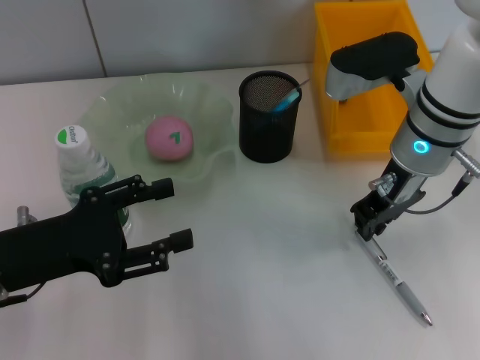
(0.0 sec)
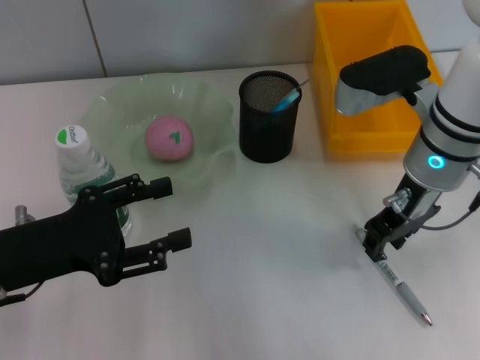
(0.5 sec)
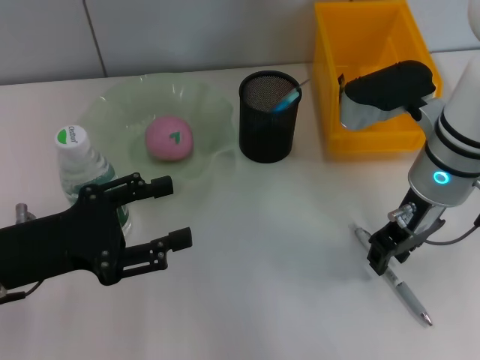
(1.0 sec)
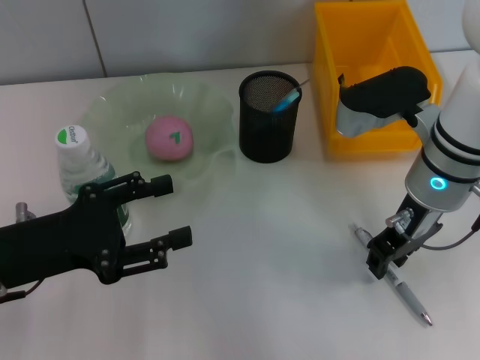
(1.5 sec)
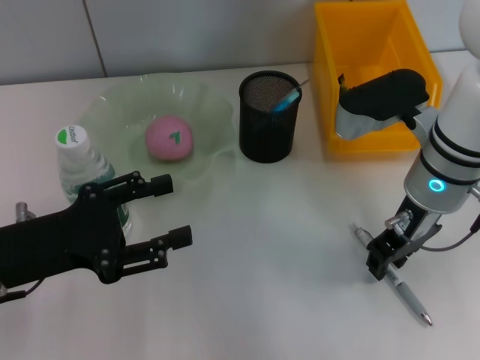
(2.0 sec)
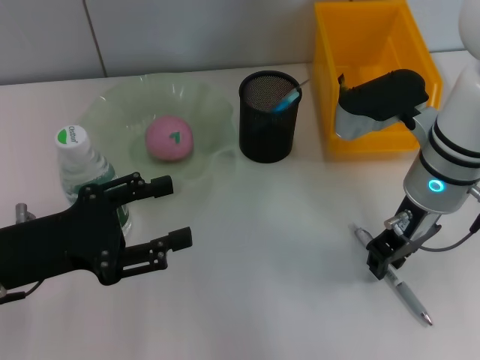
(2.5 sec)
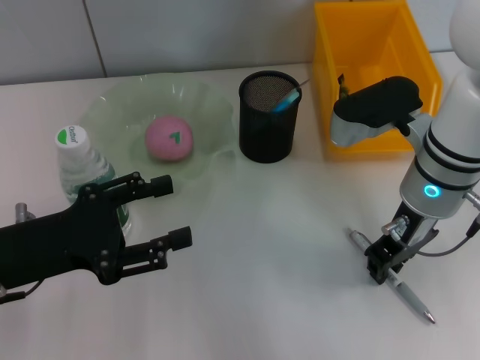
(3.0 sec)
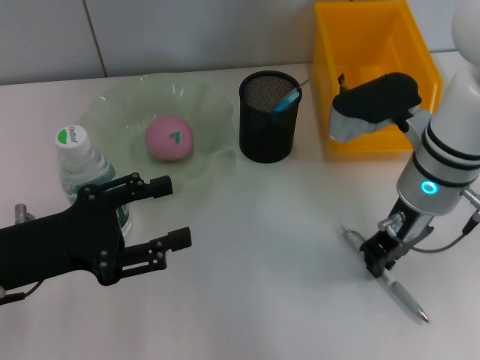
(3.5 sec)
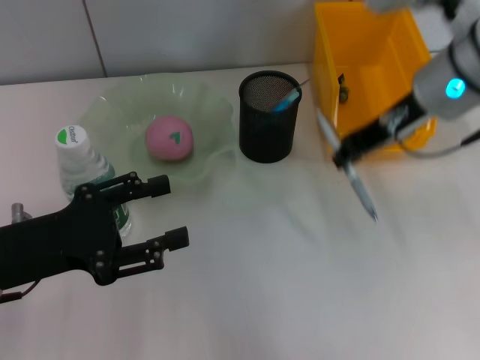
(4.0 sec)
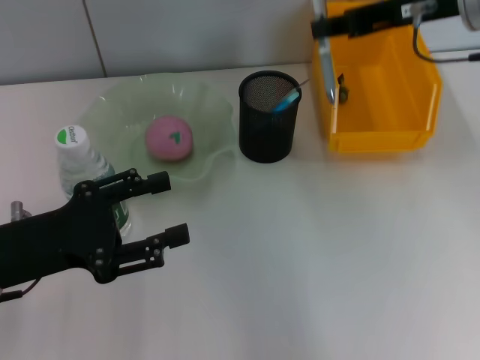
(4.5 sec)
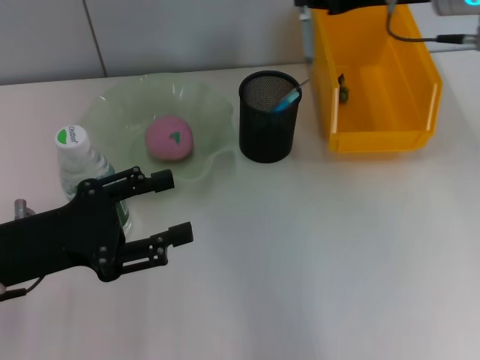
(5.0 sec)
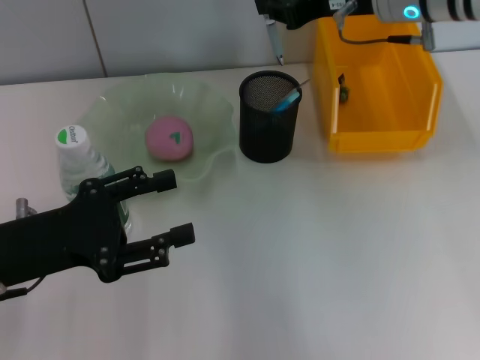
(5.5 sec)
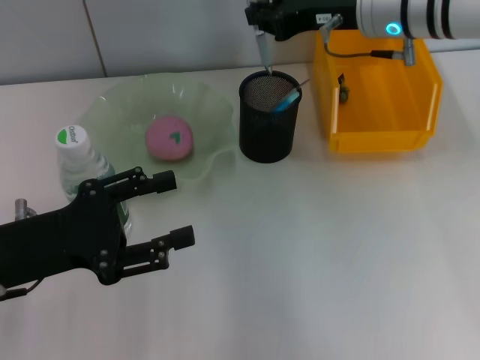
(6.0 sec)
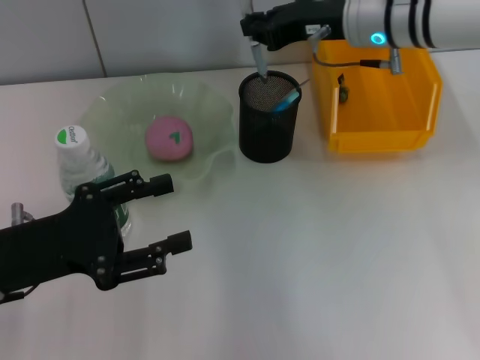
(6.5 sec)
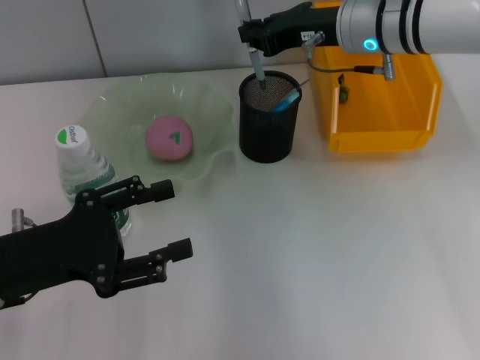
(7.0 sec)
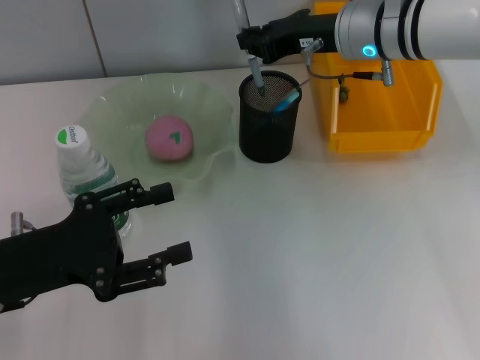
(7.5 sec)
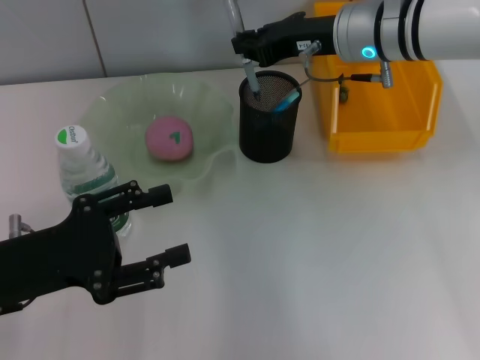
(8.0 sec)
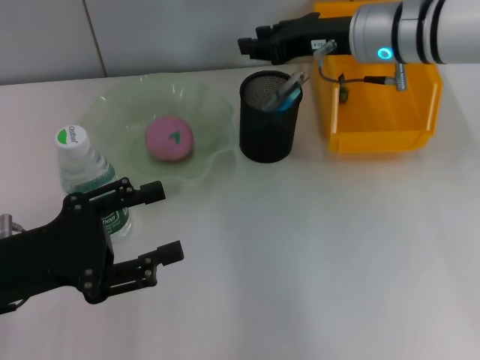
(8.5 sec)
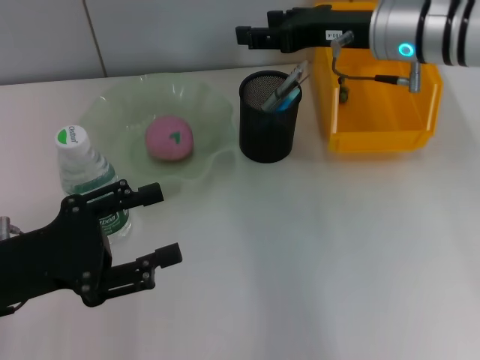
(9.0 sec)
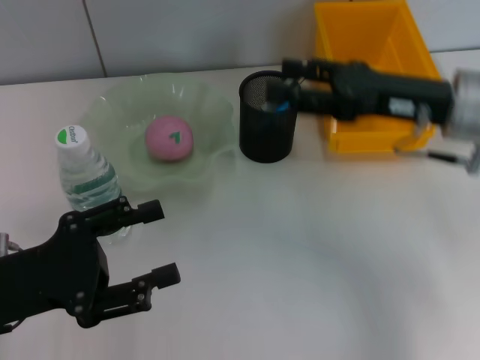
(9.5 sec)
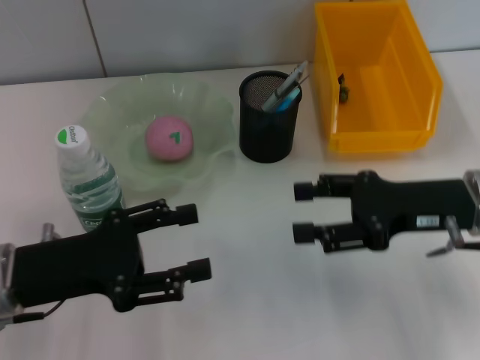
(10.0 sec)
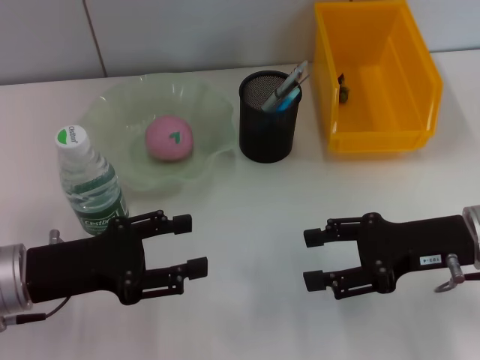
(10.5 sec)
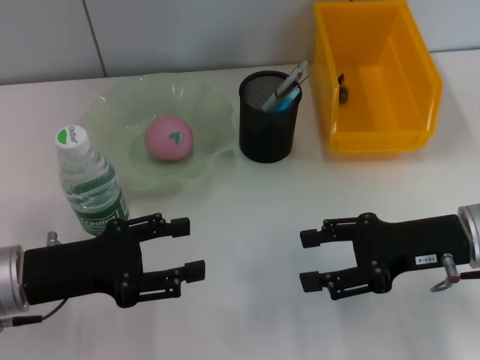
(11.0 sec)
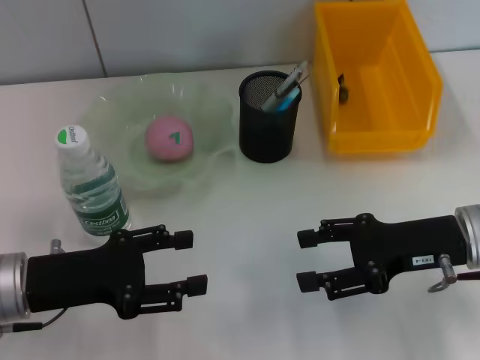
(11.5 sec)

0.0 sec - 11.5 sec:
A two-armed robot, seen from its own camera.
Step, 0.0 sec - 3.0 sec: Grab the gray spring-action pen with the right hand.
Step, 3.5 sec - 8.5 sec: Place the gray spring-action pen into the pen holder with the right hand.
0.0 sec - 2.0 sec: There are only small adjustments of the grippers.
2.0 sec - 4.0 sec: The right gripper moves upward, about 10 cm.
4.0 sec - 6.0 sec: The right gripper shifts roughly 5 cm forward.
6.0 sec - 7.5 sec: The grippers make only small movements.
7.5 sec - 9.5 sec: The right gripper shifts about 15 cm backward and to the right, and opens its fingers.
9.5 sec - 11.5 sec: The right gripper is displaced downward by approximately 5 cm.

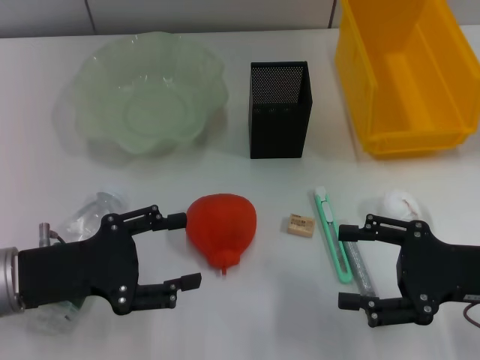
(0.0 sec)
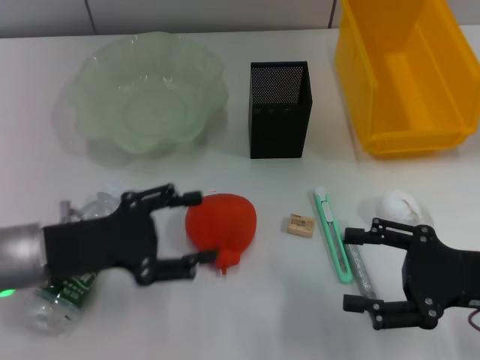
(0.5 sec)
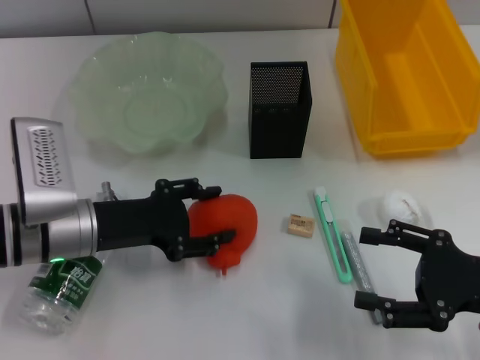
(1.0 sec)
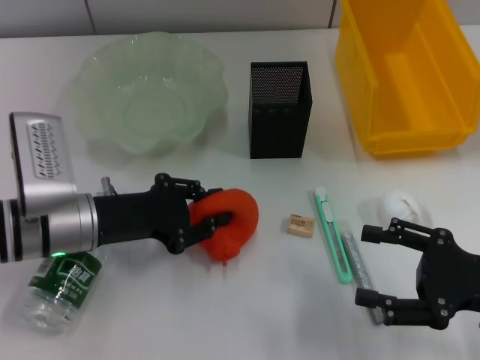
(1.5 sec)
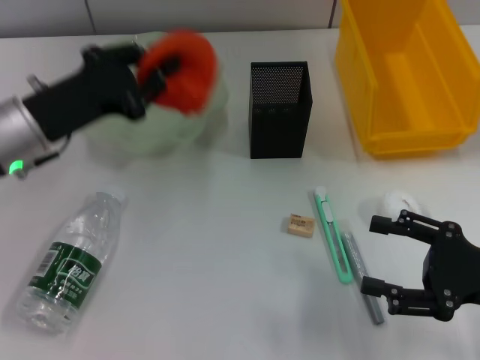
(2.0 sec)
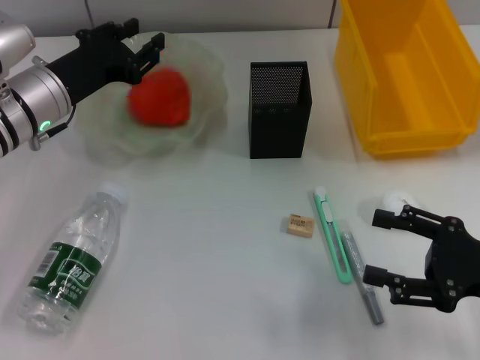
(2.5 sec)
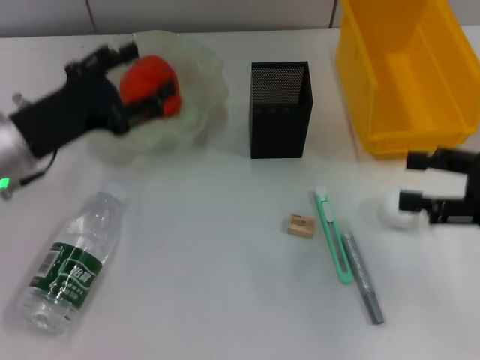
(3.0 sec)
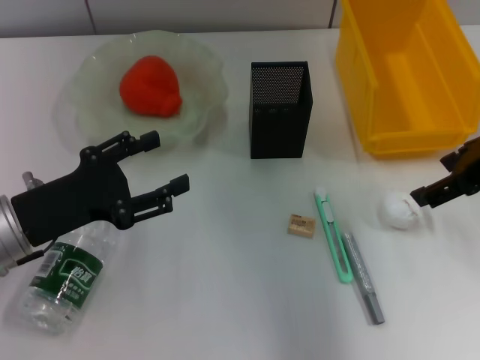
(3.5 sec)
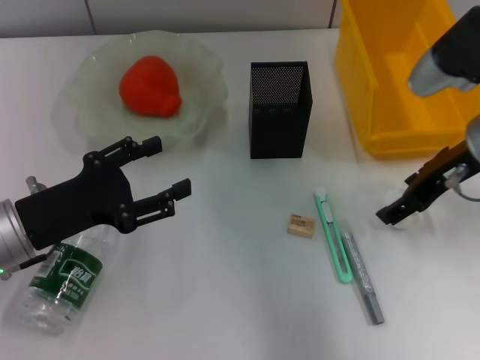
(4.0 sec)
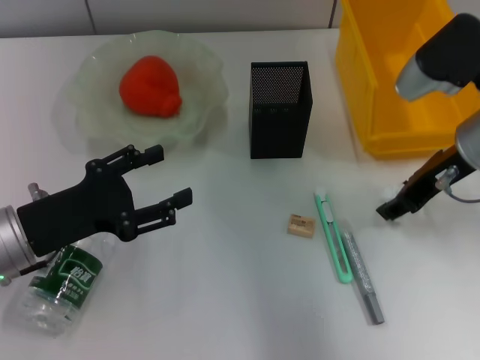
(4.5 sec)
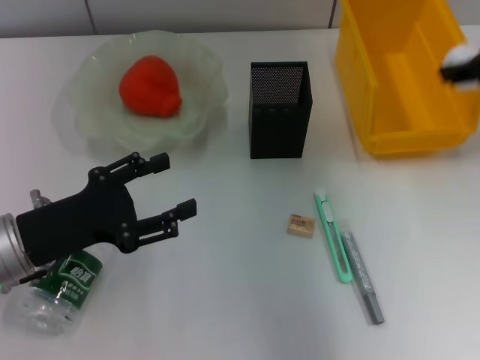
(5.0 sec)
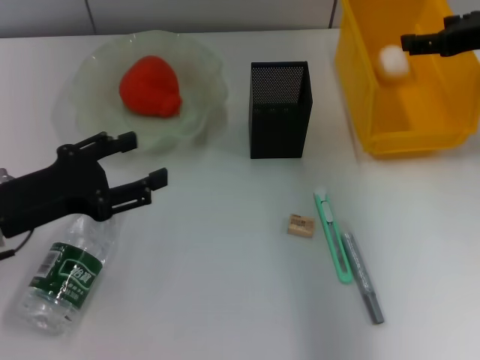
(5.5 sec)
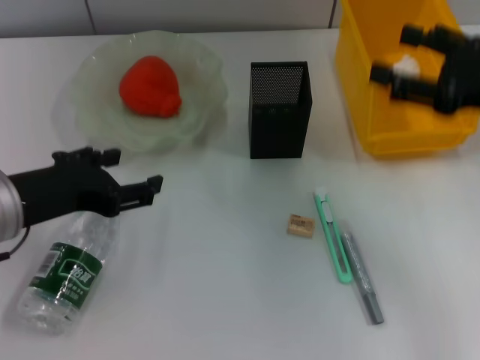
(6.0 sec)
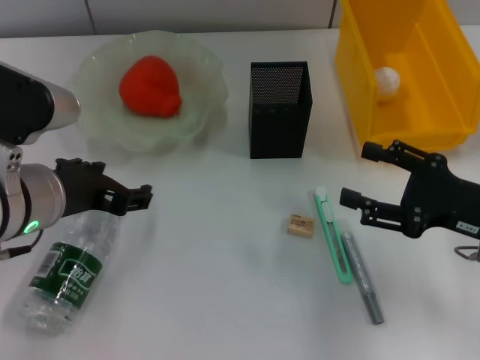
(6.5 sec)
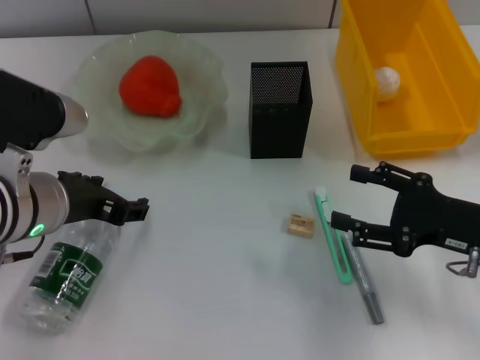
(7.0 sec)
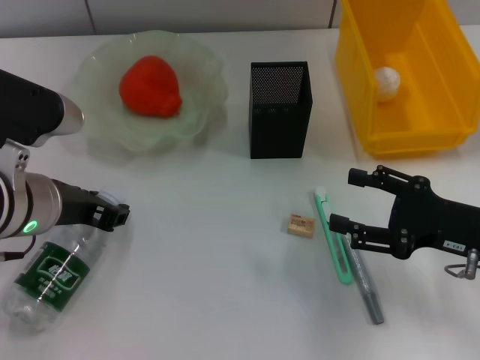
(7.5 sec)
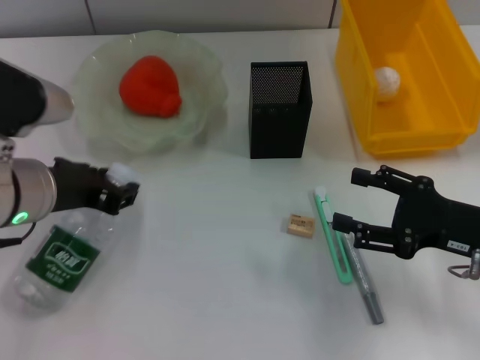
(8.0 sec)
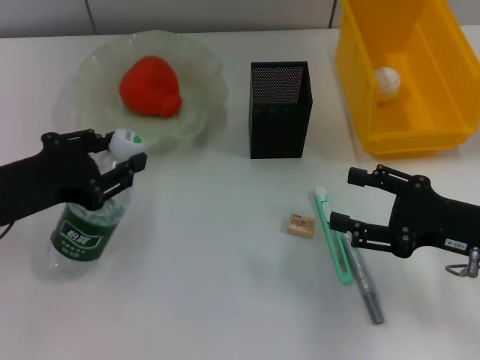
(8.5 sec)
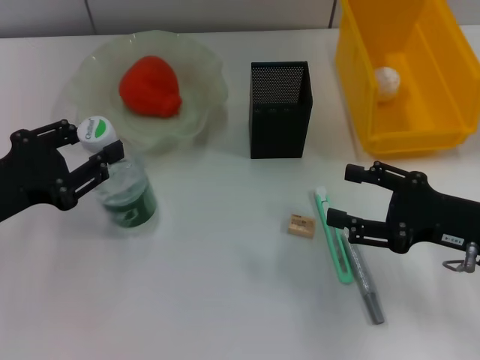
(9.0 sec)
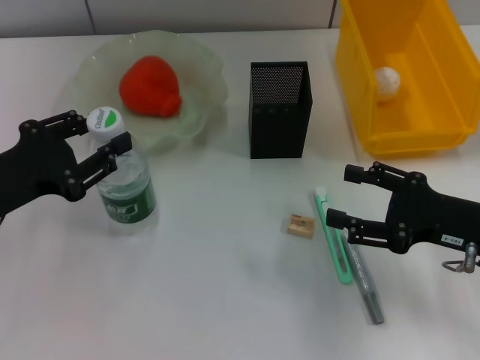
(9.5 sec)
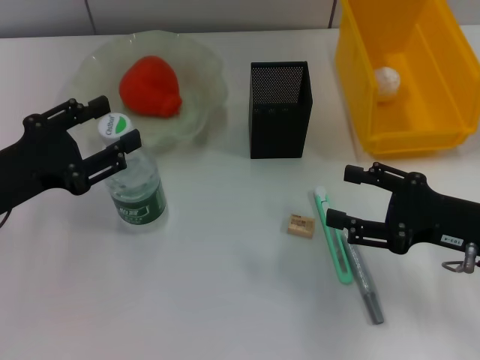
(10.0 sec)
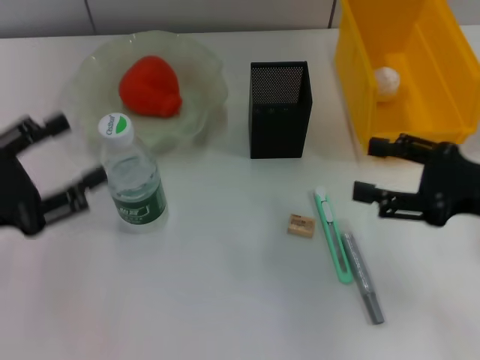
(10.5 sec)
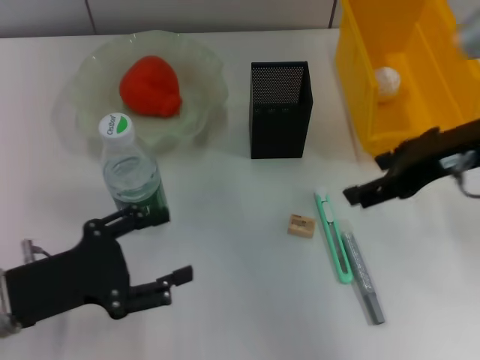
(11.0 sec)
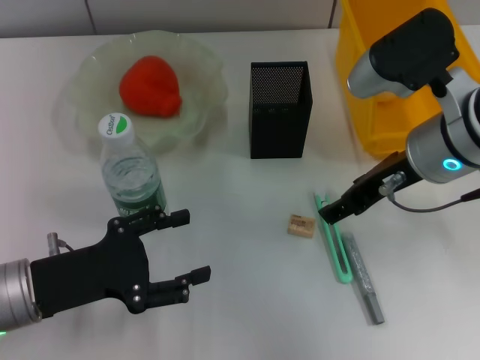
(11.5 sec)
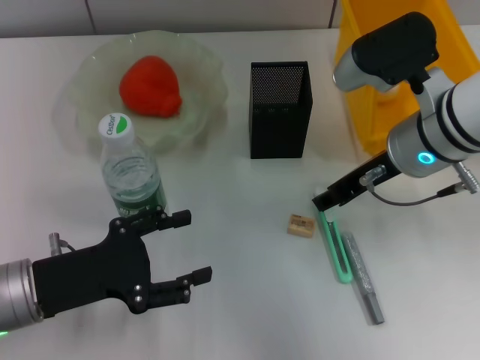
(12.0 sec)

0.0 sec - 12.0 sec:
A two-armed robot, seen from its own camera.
Step, 0.0 sec - 1.0 sec: Grab the orange with the left hand.
Step, 1.5 sec - 2.5 sec: Place the orange into the fruit bowl with the left hand.
Step, 3.0 sec - 4.0 sec: Grab the paper ball with the right hand.
Step, 4.5 sec - 5.0 sec: Place the paper ball into the trash can with the right hand.
Step, 5.5 sec - 7.5 sec: Grab the water bottle with the left hand.
Step, 8.0 sec - 10.0 sec: Place the water bottle on the table with the left hand.
0.0 sec - 2.0 sec: The left gripper shifts about 10 cm forward, and closes its fingers.
2.0 sec - 4.0 sec: The right gripper moves forward, upward and to the left, approximately 20 cm, while the left gripper moves backward, about 10 cm, and opens.
4.0 sec - 6.0 sec: The right gripper shifts some 5 cm to the right, goes upward and returns, approximately 10 cm each way, and closes and opens again, while the left gripper moves upward, about 10 cm.
6.0 sec - 8.0 sec: The right gripper travels downward and backward by some 10 cm. The left gripper closes its fingers.
8.0 sec - 10.0 sec: The left gripper is displaced to the left by about 10 cm.
10.0 sec - 12.0 sec: The left gripper goes about 5 cm downward, and opens. Meanwhile the right gripper is displaced to the left, forward and upward by about 15 cm.

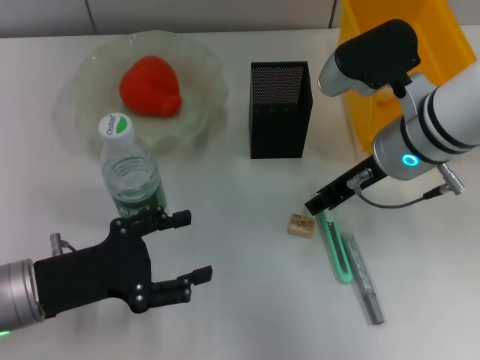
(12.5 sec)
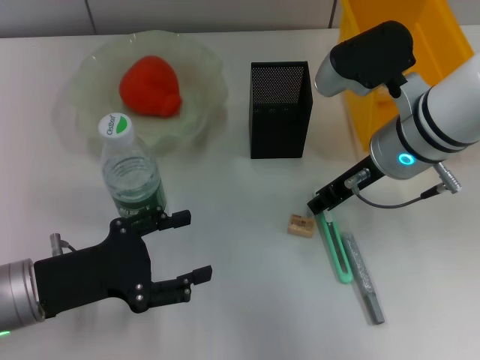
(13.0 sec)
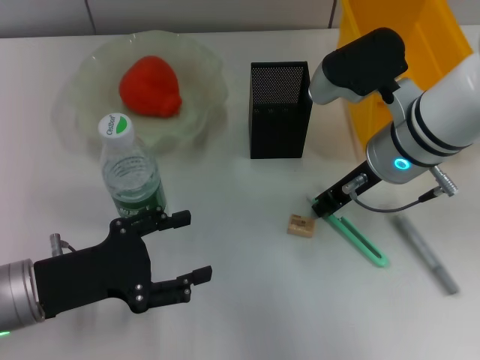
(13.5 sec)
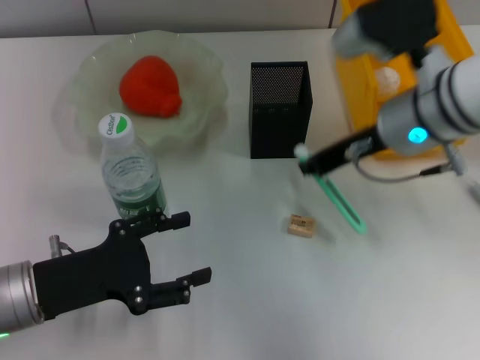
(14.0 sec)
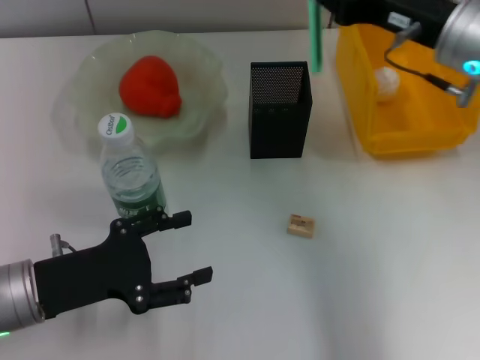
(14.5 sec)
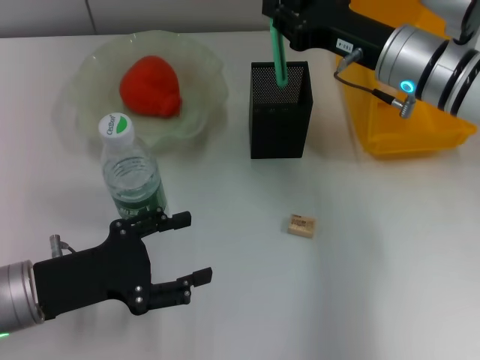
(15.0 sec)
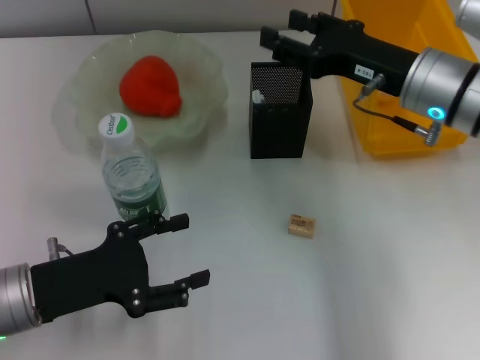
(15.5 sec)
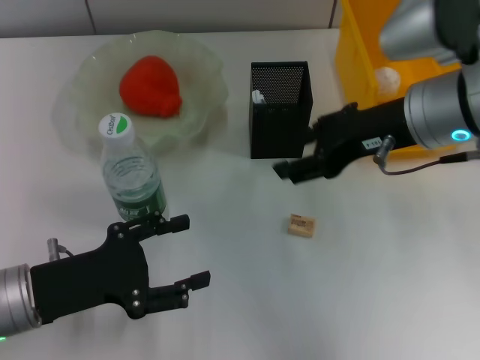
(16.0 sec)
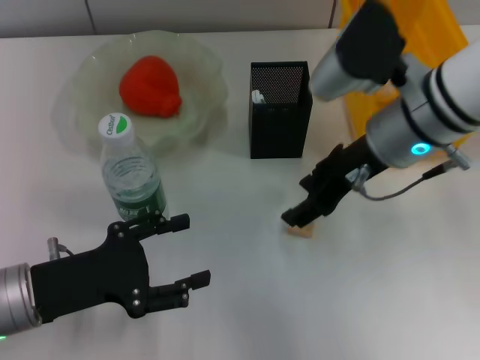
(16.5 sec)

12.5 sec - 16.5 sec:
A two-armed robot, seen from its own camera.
Step, 14.0 sec - 15.0 sec: Place the blue utility knife into the pen holder with the right hand.
12.5 sec - 14.5 sec: The right gripper shifts roughly 5 cm to the right, and closes up.
14.5 sec - 16.5 sec: The right gripper moves to the left, some 5 cm, and opens.
